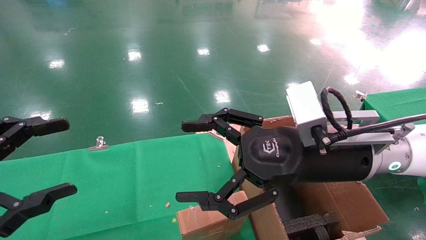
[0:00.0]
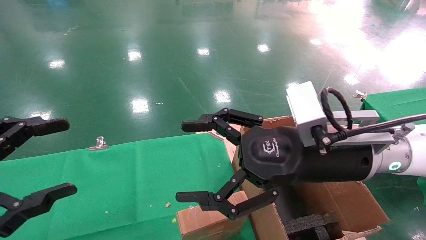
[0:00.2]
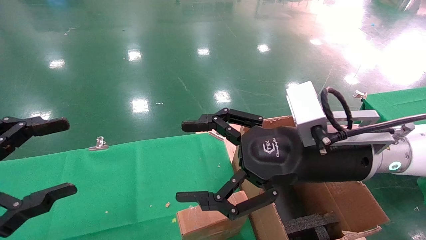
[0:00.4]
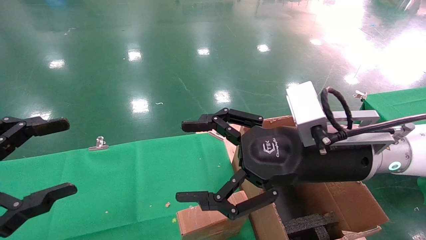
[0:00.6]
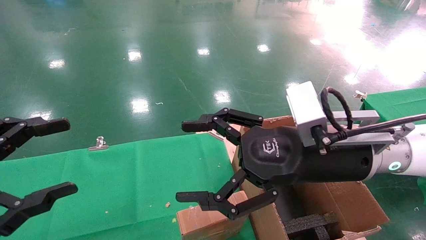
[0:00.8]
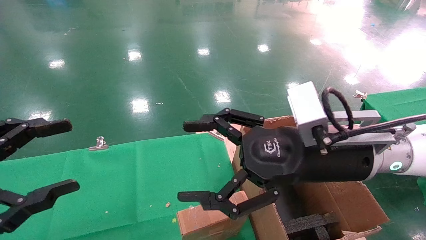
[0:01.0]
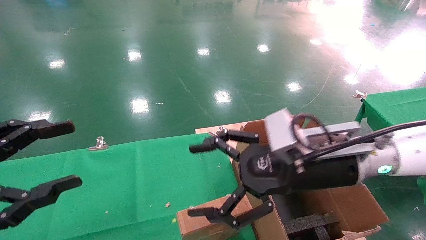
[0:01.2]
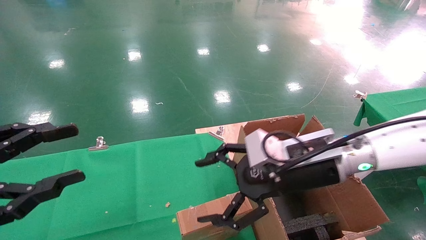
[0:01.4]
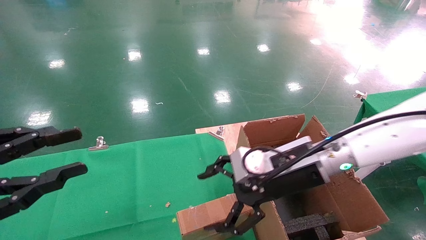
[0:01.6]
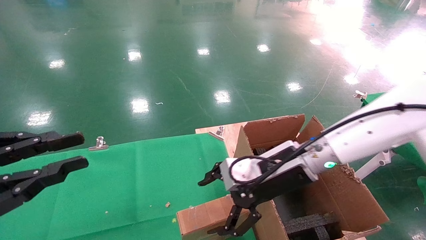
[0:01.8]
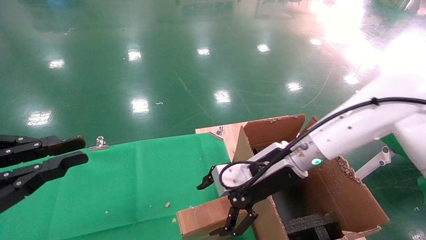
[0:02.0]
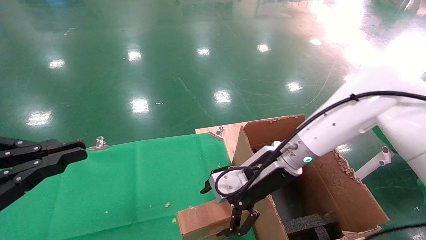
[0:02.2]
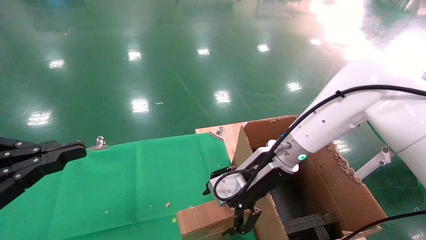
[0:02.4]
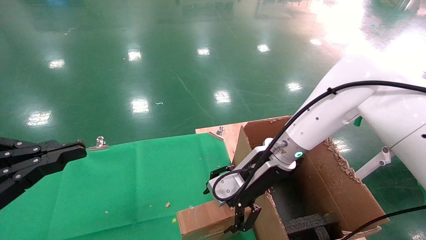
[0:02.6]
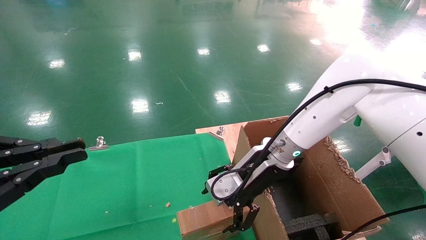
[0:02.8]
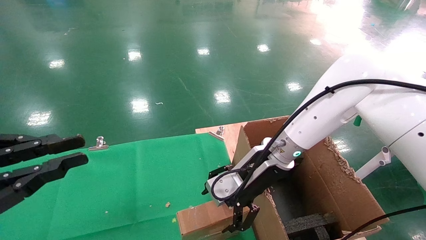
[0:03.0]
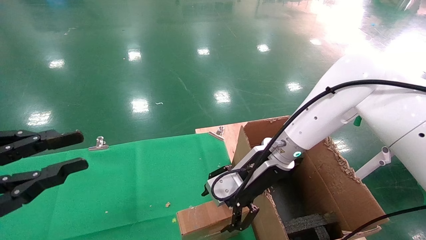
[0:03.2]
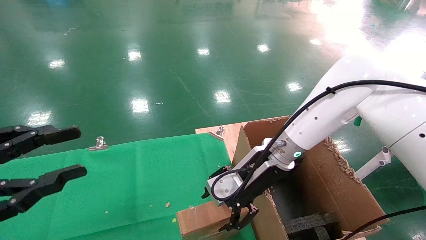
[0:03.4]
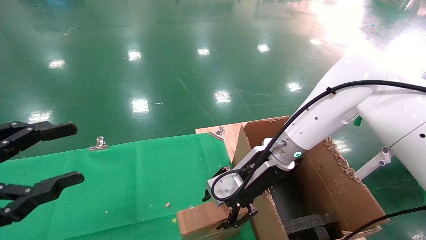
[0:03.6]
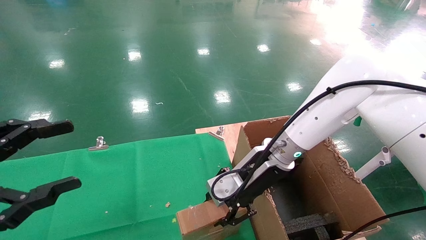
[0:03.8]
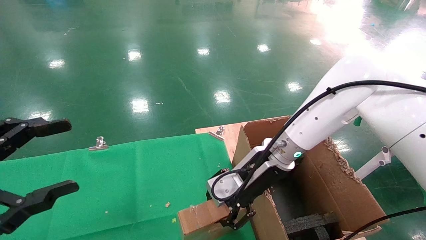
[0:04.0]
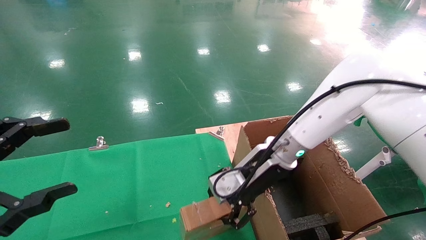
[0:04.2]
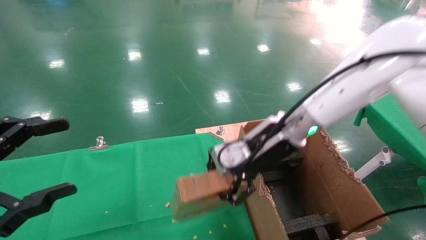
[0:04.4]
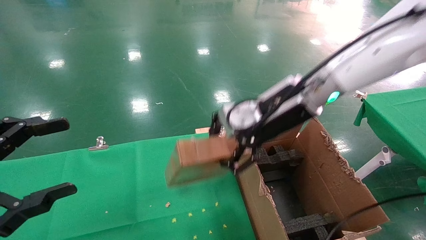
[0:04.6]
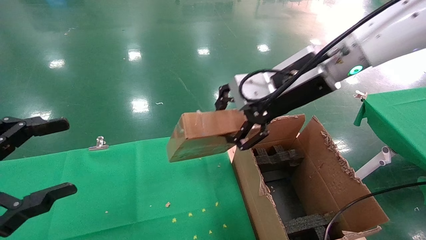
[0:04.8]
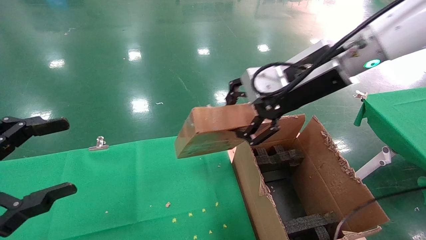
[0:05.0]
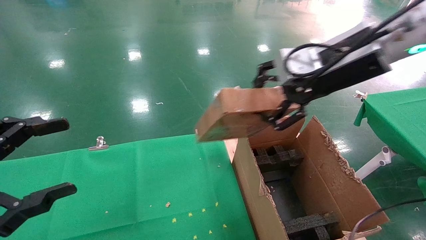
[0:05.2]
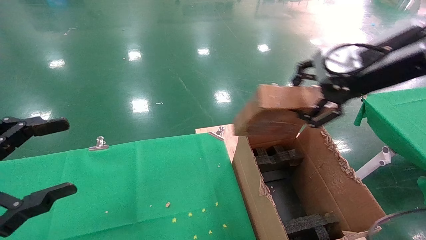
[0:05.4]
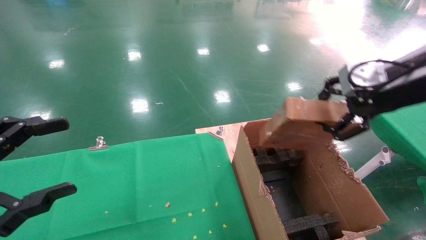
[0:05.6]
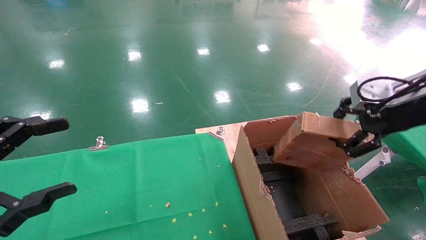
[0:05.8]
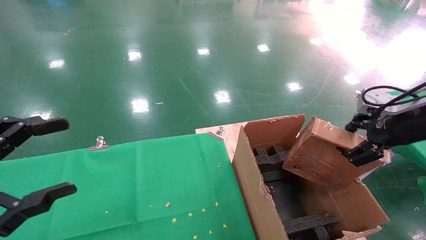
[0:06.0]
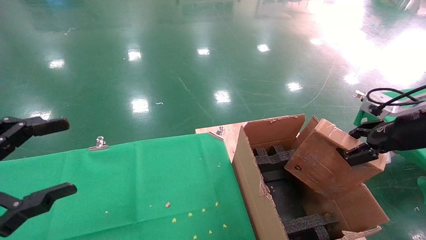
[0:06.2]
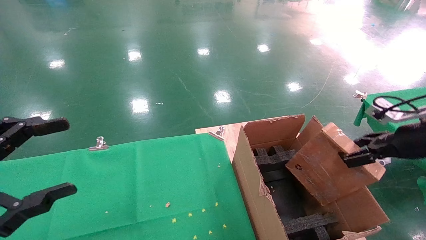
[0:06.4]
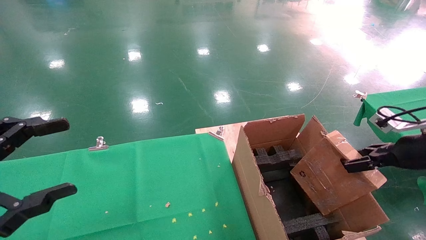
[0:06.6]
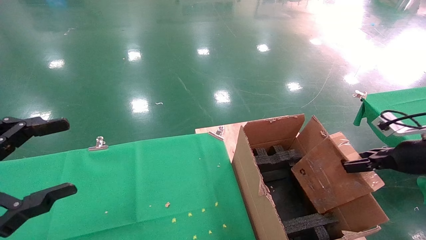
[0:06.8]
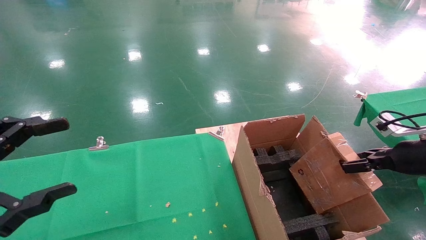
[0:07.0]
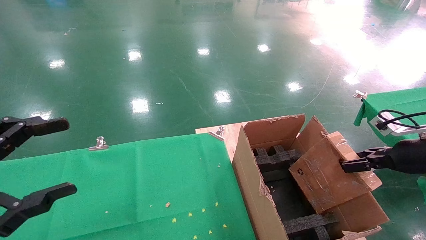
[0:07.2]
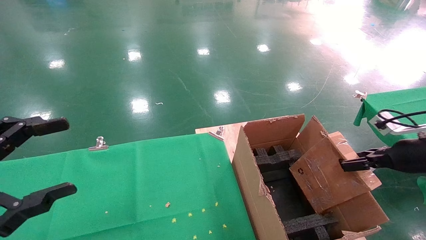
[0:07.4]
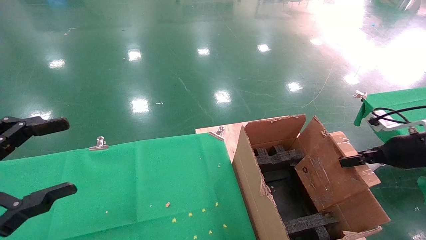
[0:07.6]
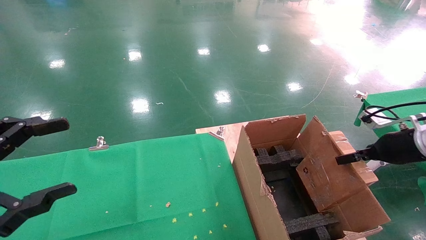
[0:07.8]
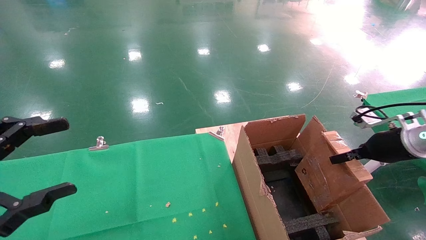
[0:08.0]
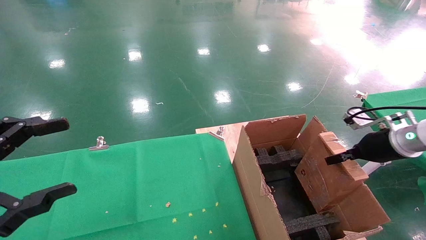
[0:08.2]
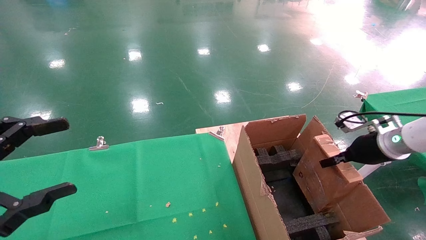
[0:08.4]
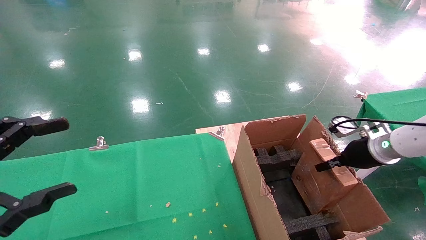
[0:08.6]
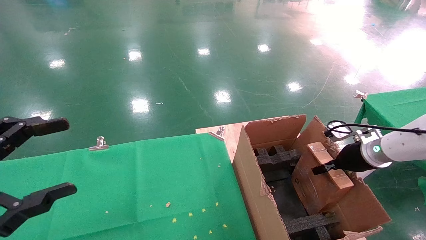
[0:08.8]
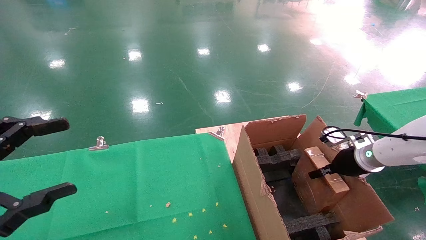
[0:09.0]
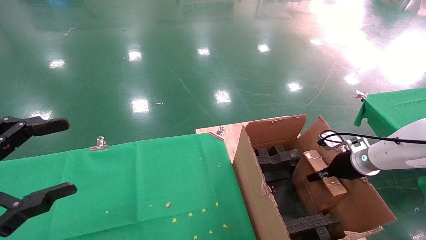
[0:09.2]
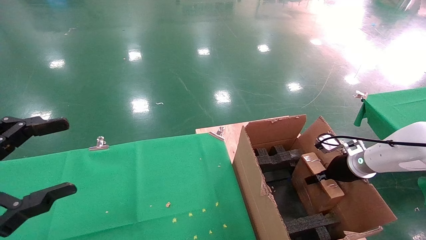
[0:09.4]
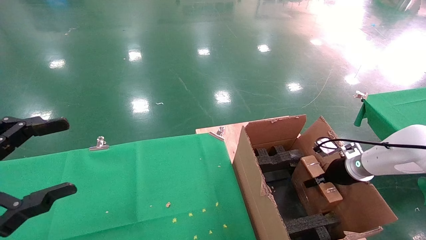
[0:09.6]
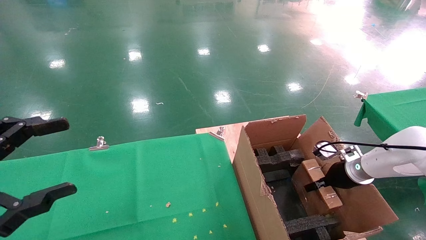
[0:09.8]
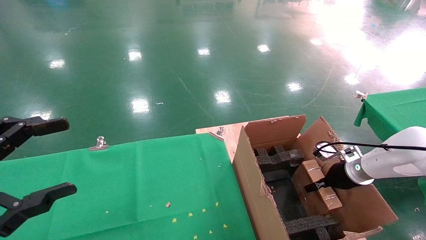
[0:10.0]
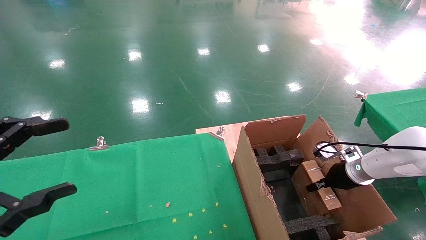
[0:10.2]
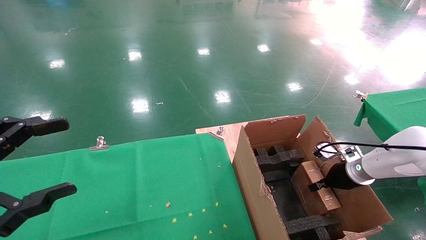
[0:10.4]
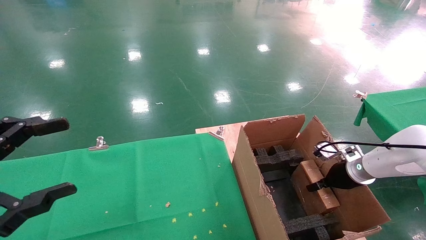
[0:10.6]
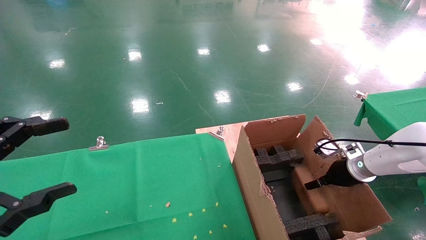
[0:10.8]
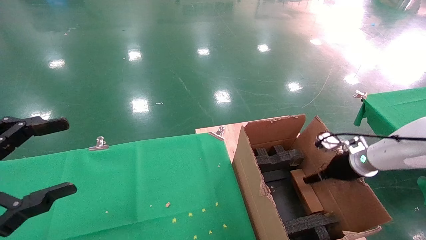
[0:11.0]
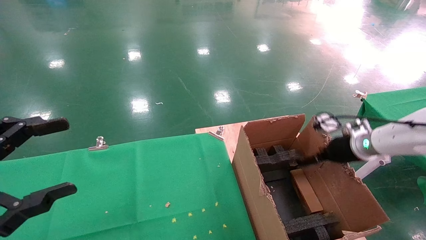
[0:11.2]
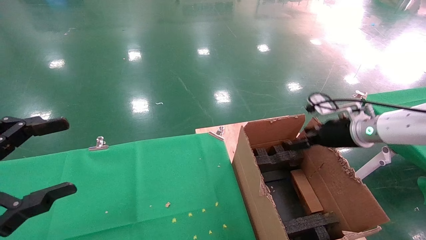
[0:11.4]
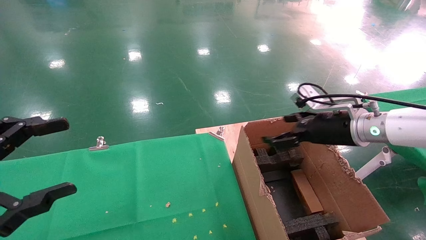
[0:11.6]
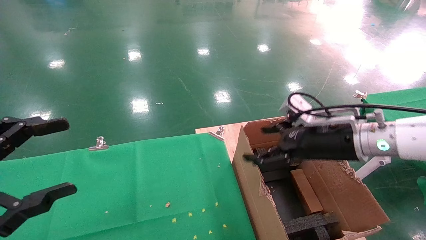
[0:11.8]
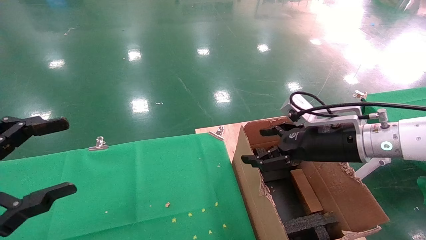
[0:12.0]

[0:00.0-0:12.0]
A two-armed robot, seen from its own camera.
Task of the whole recording: using a robotic arm to pick up a cardboard box and palace it the carton.
Step, 0:01.2 to 0:03.6: Pick up the mouse and the power cord paper box.
Step, 0:03.8 to 0:11.4: Place the mouse and the power cord paper box into the container.
0:00.0 to 0:01.6: The right gripper goes roughly 5 cm forward; the left gripper closes.
0:01.6 to 0:03.0: The left gripper closes. Meanwhile the right gripper goes about 5 cm forward.
0:03.0 to 0:04.4: The left gripper opens its fingers. The right gripper travels upward by roughly 5 cm, and closes.
0:04.4 to 0:06.0: The right gripper heads to the right, covering about 25 cm.
0:06.0 to 0:07.6: The right gripper goes roughly 10 cm downward and to the right.
0:07.6 to 0:09.0: The right gripper is displaced forward, downward and to the left by about 10 cm.
0:09.0 to 0:10.4: The right gripper ends up roughly 5 cm from where it was.
0:10.4 to 0:12.0: The right gripper moves upward, to the left and backward, some 25 cm, and opens its fingers.

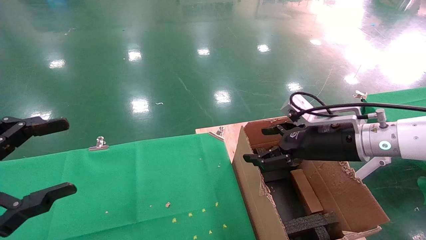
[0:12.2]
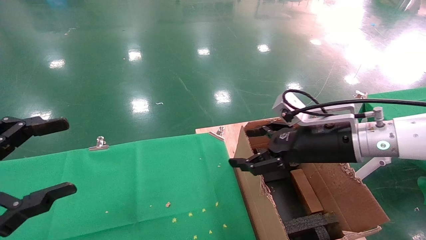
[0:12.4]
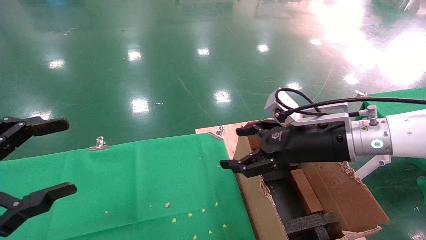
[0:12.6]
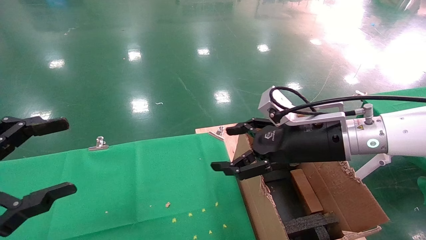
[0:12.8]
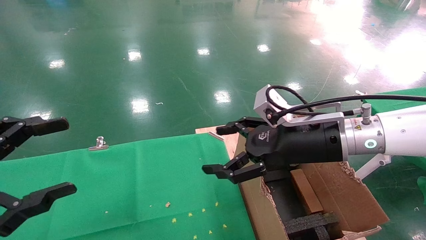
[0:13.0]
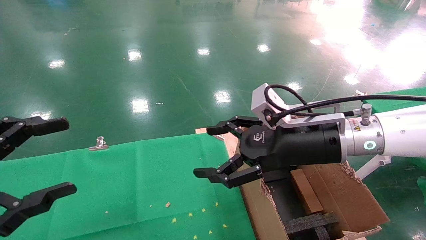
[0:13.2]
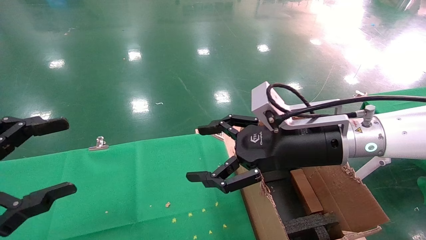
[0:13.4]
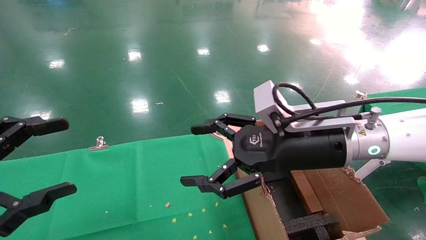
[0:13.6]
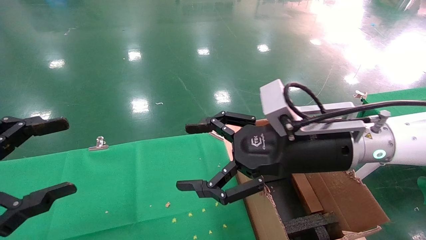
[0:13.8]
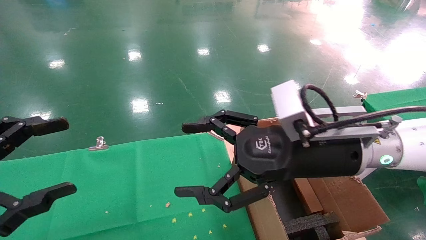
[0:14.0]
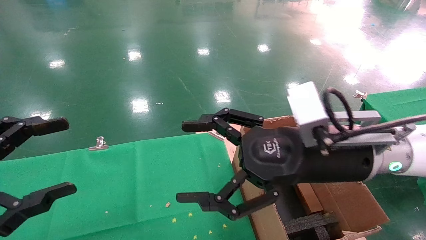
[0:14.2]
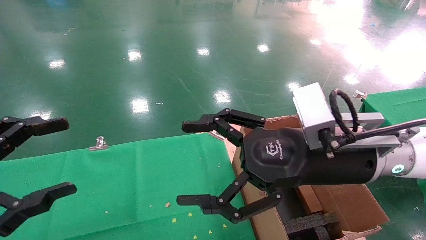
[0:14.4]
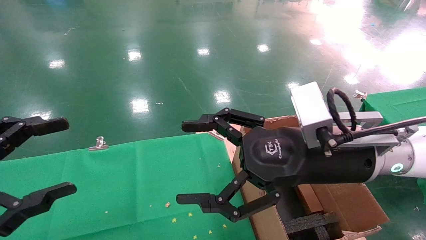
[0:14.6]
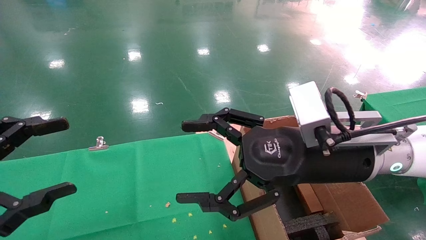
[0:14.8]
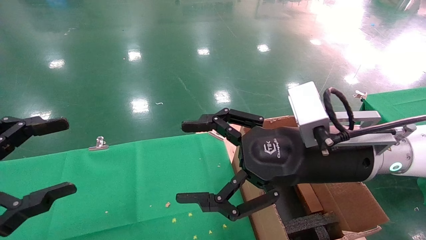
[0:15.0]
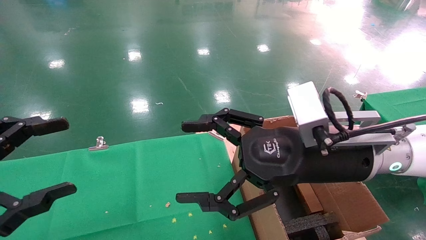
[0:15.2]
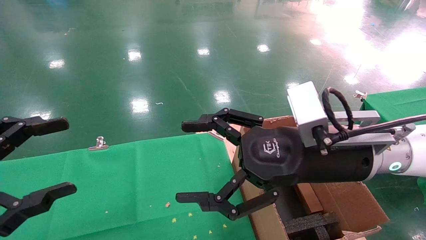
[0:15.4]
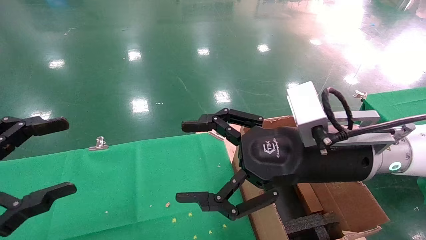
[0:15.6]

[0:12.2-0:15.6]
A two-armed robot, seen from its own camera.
Task of the whole recording: using a robotic arm to pick up a cardboard box and palace it the carton.
0:12.2 to 0:13.8: The right gripper shifts approximately 10 cm to the left.
0:13.8 to 0:15.6: The grippers move only a little.

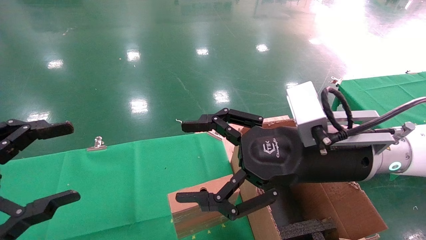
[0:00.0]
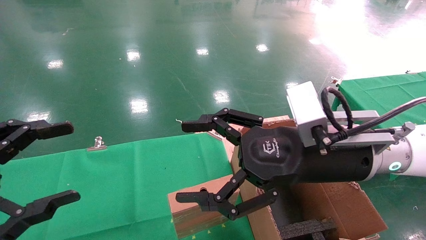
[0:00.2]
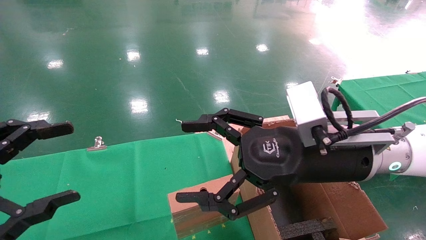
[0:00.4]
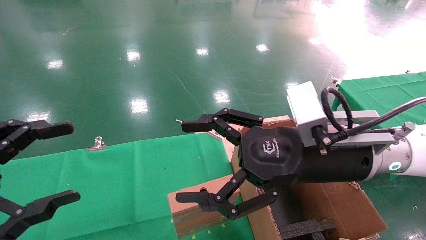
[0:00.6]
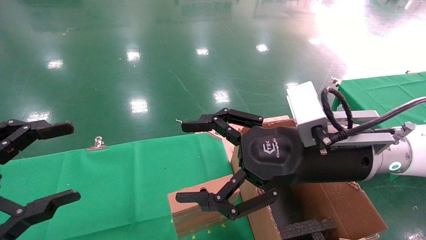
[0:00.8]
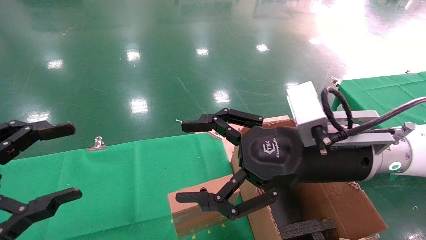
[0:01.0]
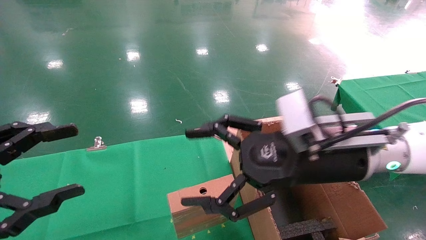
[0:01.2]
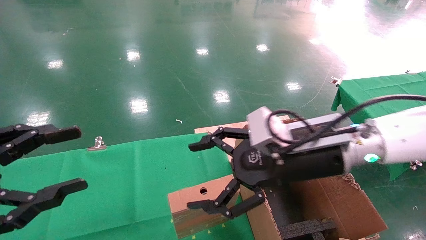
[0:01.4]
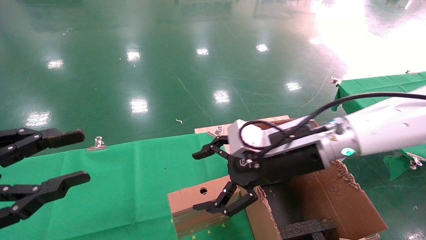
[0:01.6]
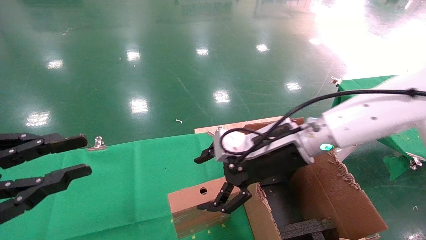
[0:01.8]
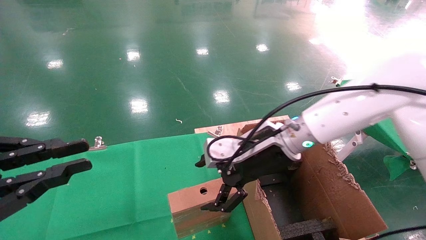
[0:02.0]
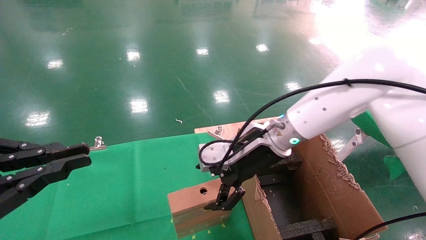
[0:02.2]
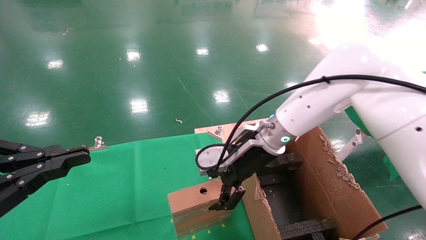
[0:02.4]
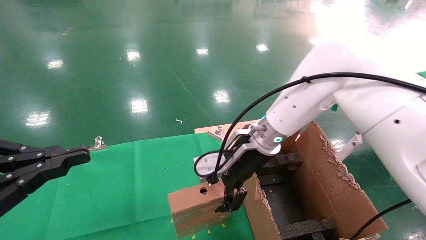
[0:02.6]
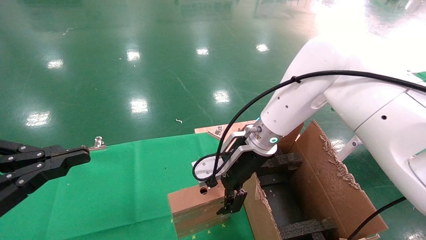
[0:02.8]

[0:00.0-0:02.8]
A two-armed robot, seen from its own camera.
Task of the whole recording: using a robotic arm to pick up a cardboard box and palace it the carton.
0:00.0 to 0:01.4: The grippers make only small movements.
0:01.4 to 0:02.8: The right gripper goes roughly 15 cm forward and to the left; the left gripper closes up.
